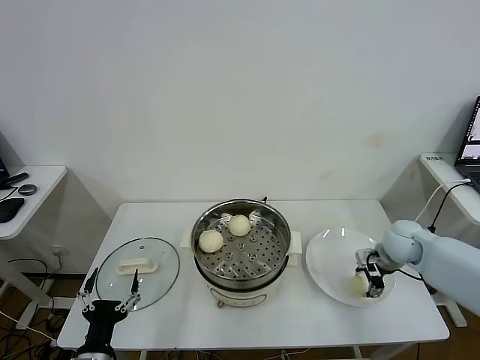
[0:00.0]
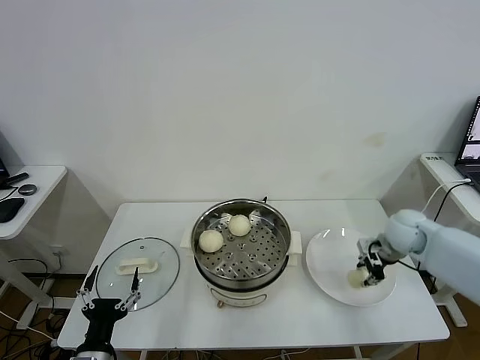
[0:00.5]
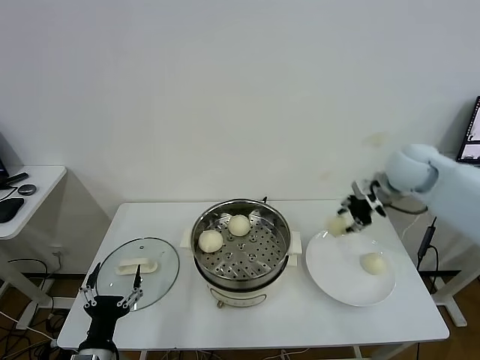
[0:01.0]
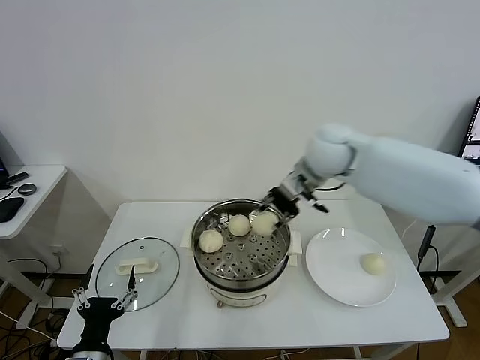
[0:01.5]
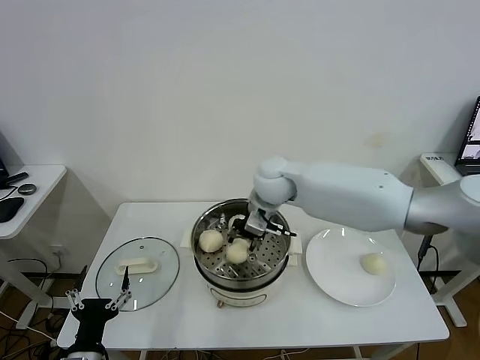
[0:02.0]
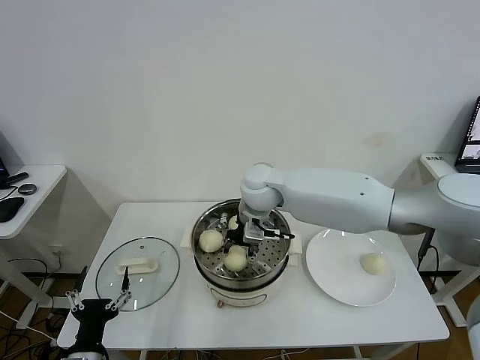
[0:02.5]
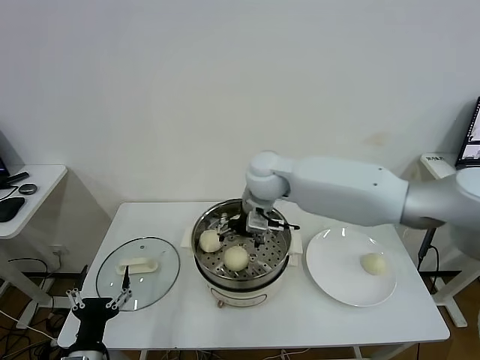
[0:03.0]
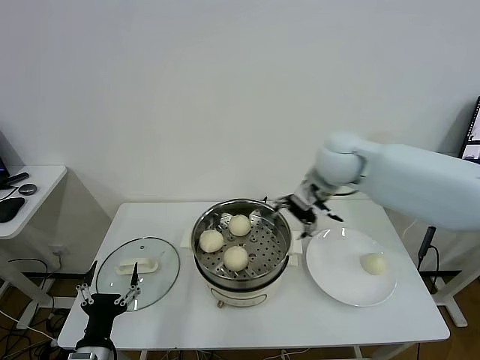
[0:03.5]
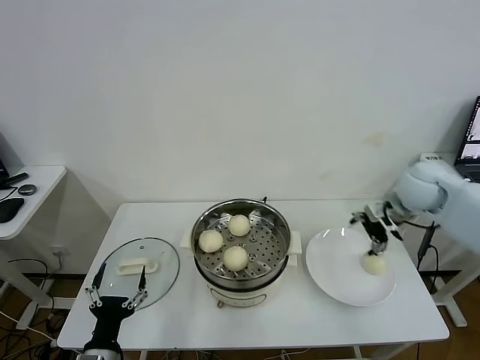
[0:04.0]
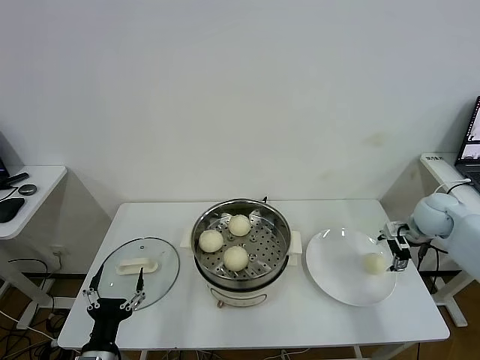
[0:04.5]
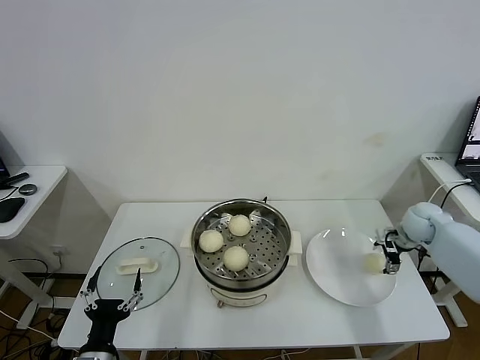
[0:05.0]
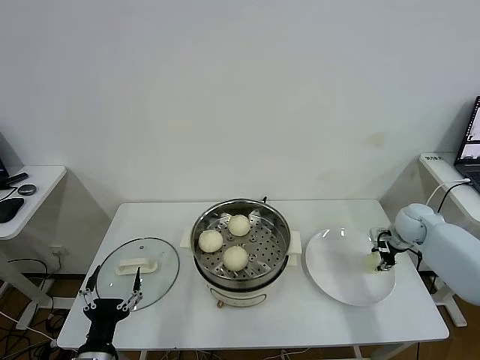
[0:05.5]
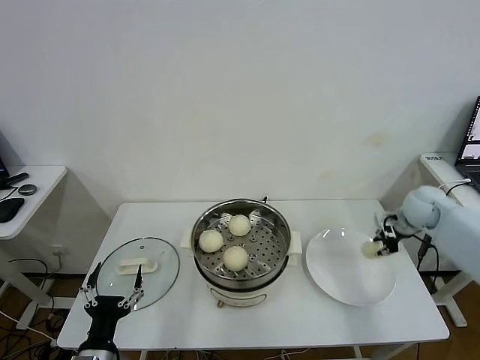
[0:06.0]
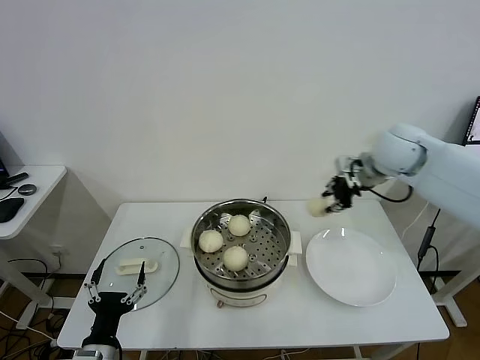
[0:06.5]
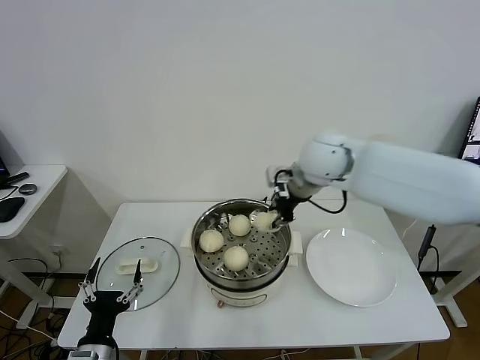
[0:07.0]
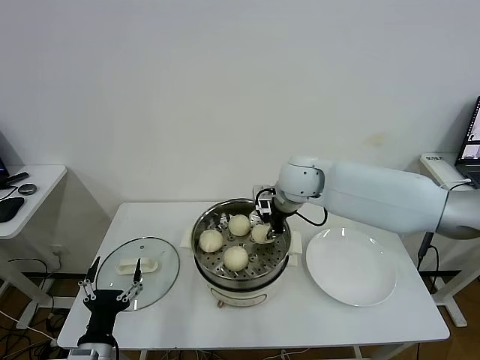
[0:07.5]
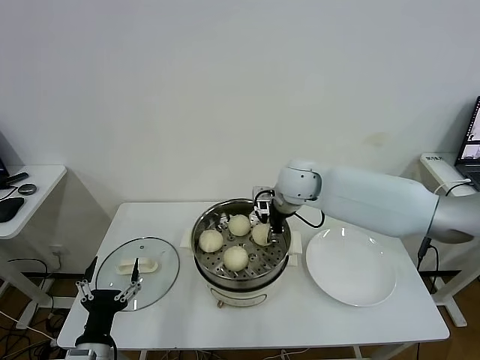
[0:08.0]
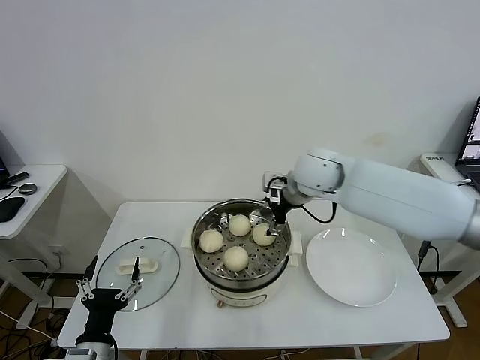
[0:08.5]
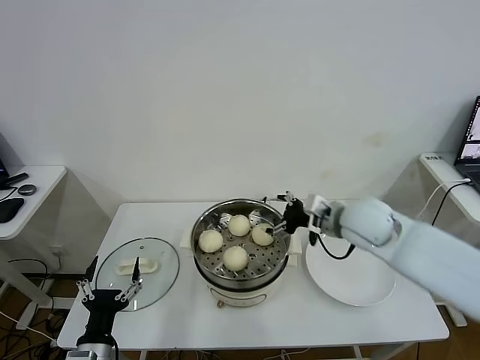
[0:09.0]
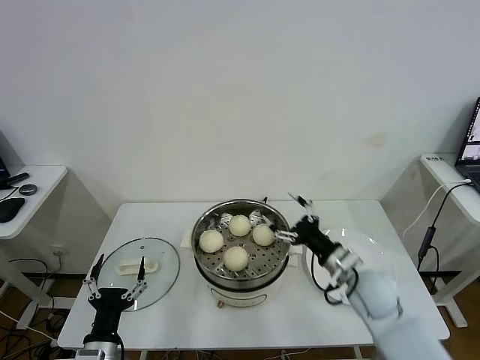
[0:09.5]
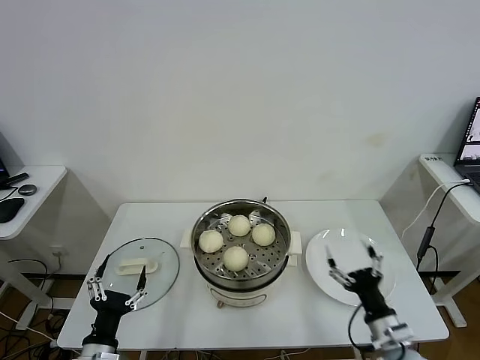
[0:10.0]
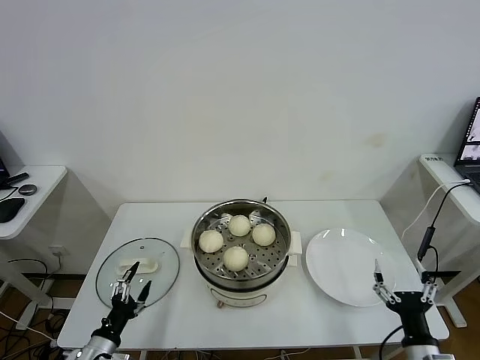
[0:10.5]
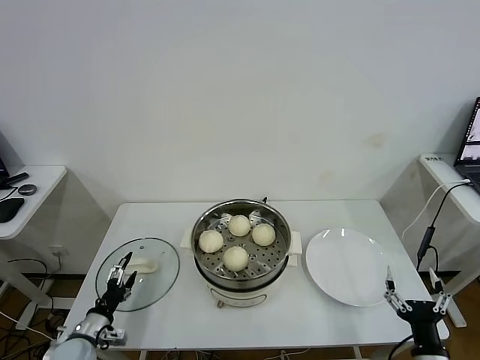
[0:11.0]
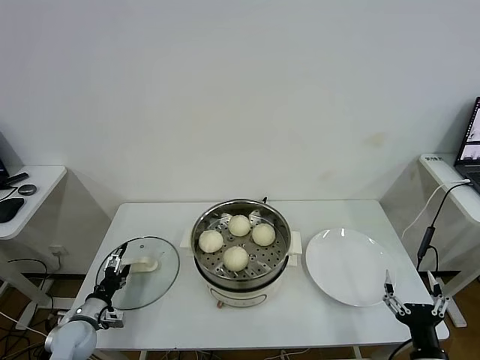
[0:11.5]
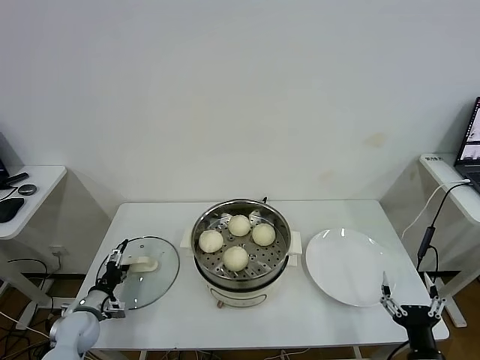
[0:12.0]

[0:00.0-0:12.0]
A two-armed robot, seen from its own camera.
Task of the whole recording: take steamed baozi put them in steamer.
Step, 0:00.5 to 0:03.0: Place the baozi on the steamer with right gripper.
Step, 0:03.5 to 0:05.5: Grasp the baozi in the plate with right gripper.
Step, 0:06.0 to 0:08.0: Place the baozi on the steamer with right gripper.
0:00.0 to 0:02.0: The right gripper shifts approximately 35 cm to the left and upward.
0:02.0 to 0:04.0: The right gripper is displaced to the right by approximately 30 cm, and opens.
0:04.0 to 0:06.0: The right gripper goes about 10 cm downward and to the right, and closes.
0:06.0 to 0:08.0: The right gripper is displaced to the left by about 30 cm, and opens up.
0:08.0 to 0:10.0: The right gripper moves backward, downward and to the right, about 40 cm, and opens up.
0:10.0 to 0:12.0: The left gripper goes about 20 cm forward, to the left and downward; the right gripper travels backward by some 10 cm.

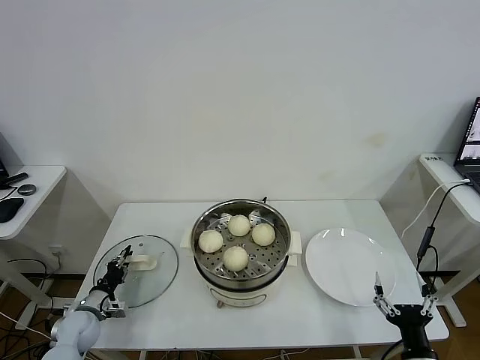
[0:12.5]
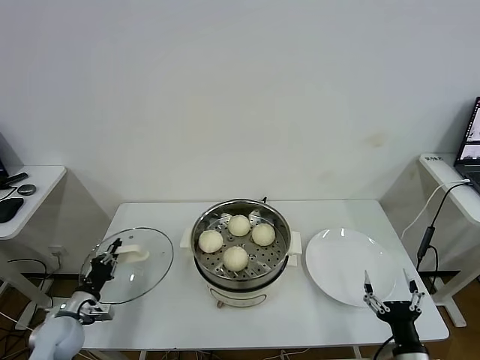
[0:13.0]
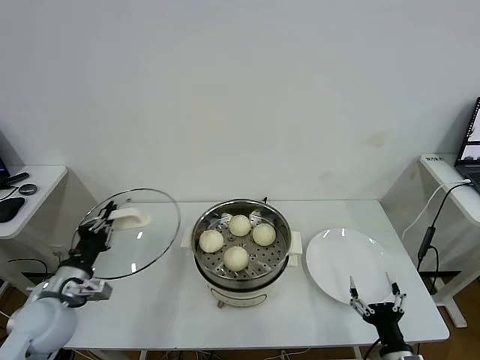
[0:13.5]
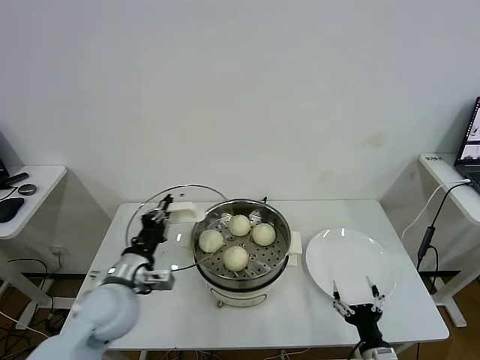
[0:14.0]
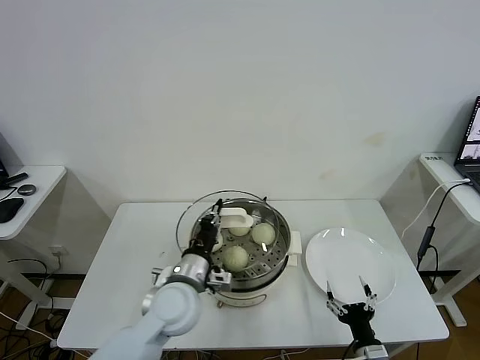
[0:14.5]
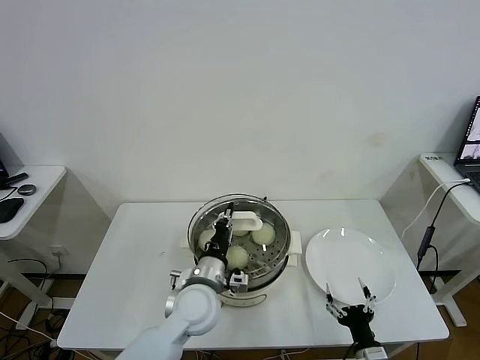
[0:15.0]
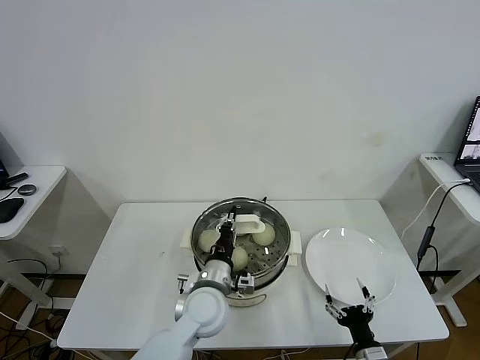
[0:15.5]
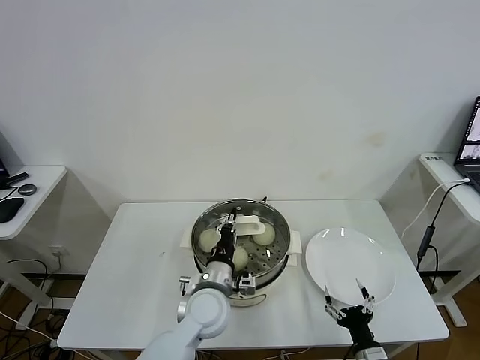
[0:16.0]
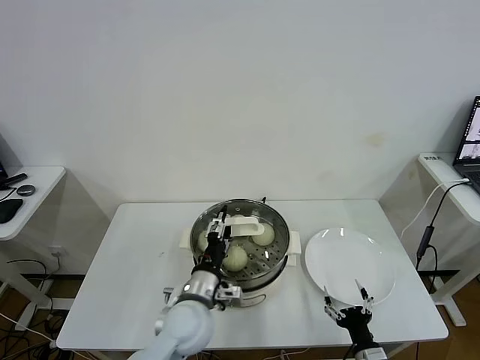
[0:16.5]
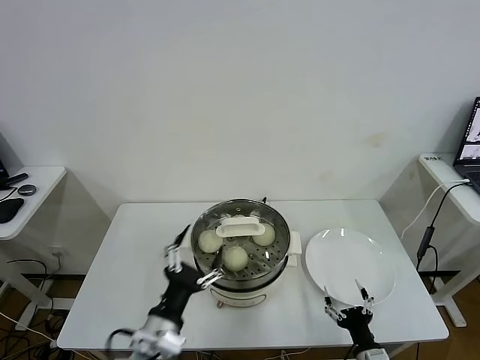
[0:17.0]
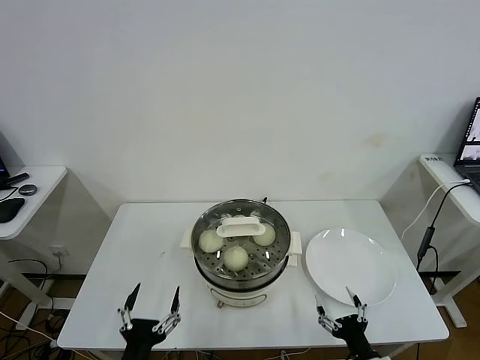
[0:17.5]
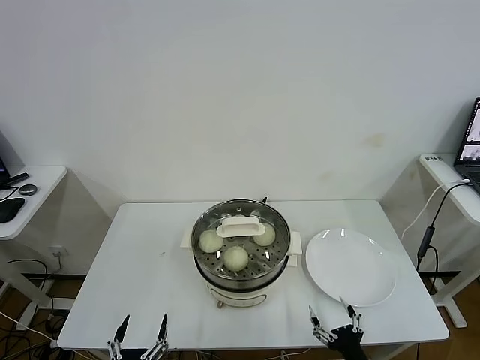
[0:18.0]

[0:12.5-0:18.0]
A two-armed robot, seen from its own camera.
Task of the whole recording: take steamed baozi put them in steamer.
Step, 0:13.0 to 0:16.5: Place the pot lid on the steamer with left gripper.
0:12.5 to 0:14.5: The left gripper shifts about 35 cm to the right and upward, and closes its fingers. The right gripper moves downward and to the left, some 10 cm.
0:14.5 to 0:16.0: The left gripper travels to the right by about 5 cm.
0:16.0 to 0:18.0: The left gripper travels backward and to the left by some 30 cm, and opens. Meanwhile the right gripper moves approximately 5 cm.
